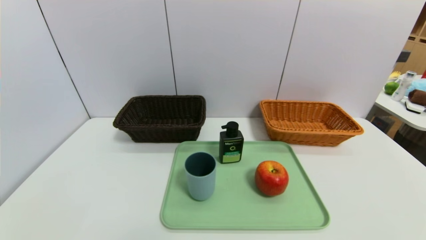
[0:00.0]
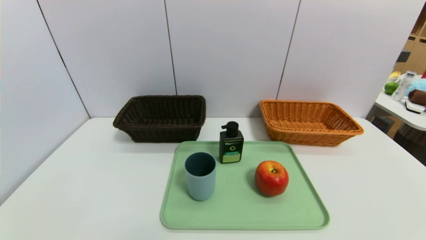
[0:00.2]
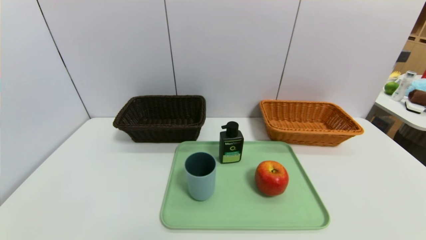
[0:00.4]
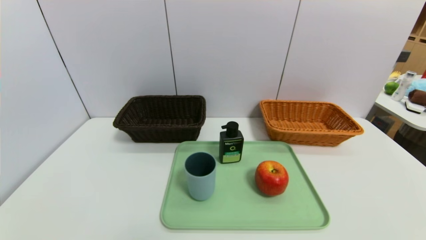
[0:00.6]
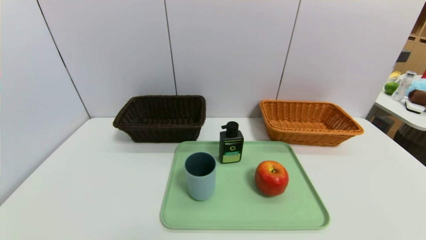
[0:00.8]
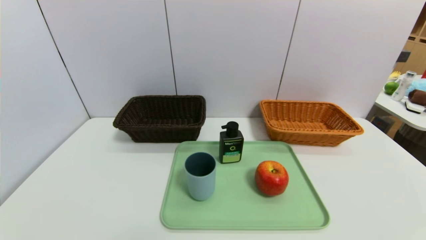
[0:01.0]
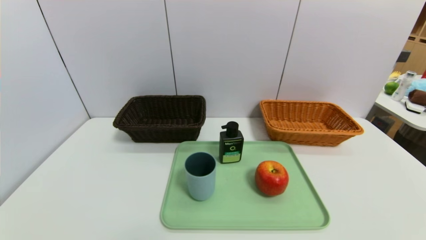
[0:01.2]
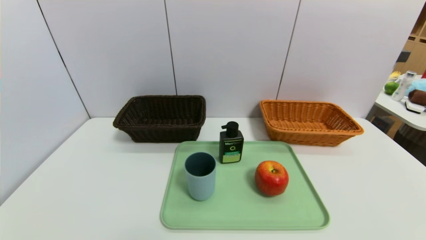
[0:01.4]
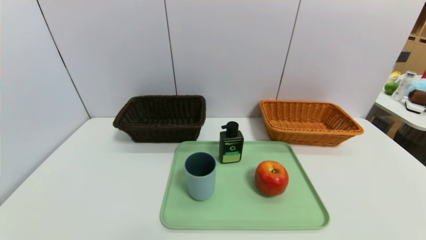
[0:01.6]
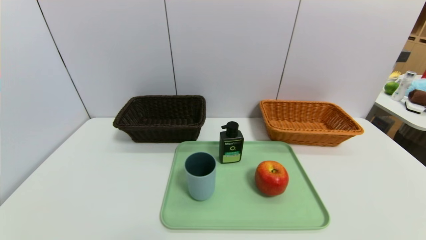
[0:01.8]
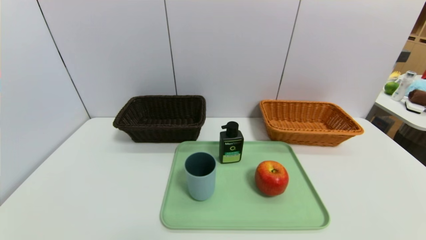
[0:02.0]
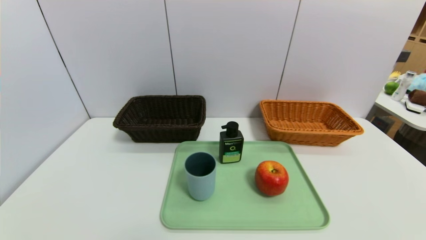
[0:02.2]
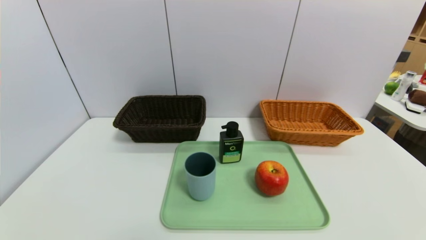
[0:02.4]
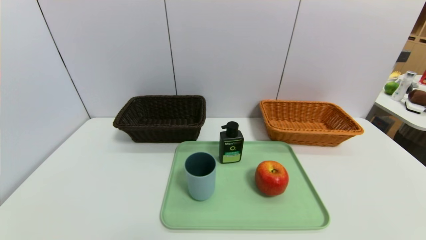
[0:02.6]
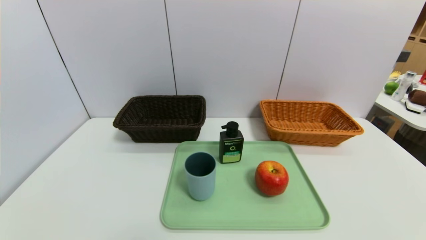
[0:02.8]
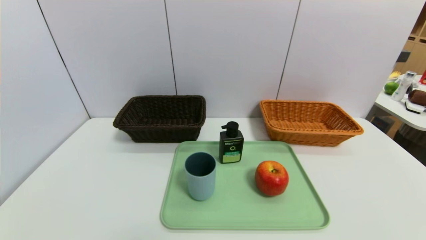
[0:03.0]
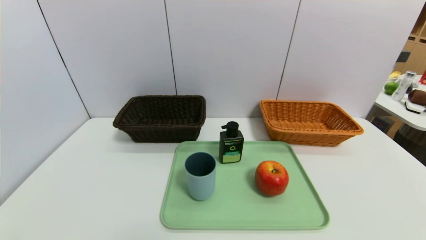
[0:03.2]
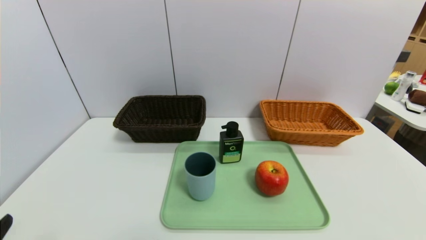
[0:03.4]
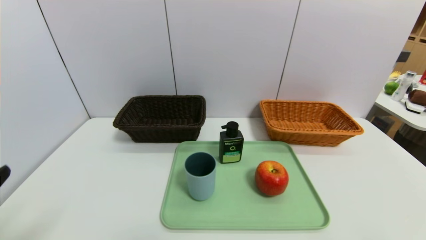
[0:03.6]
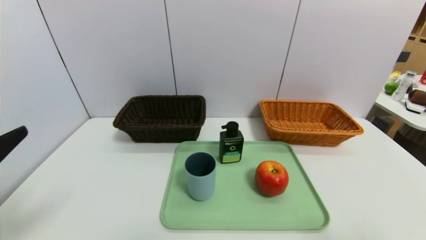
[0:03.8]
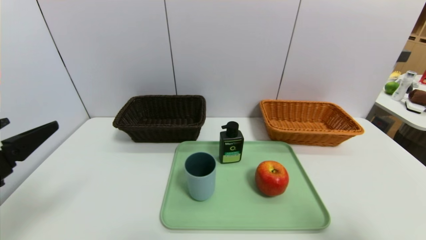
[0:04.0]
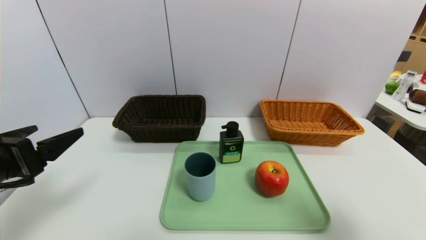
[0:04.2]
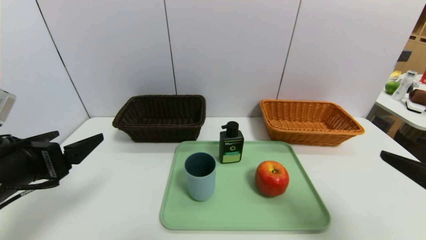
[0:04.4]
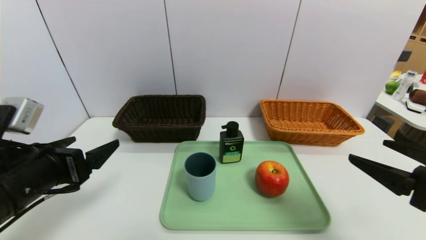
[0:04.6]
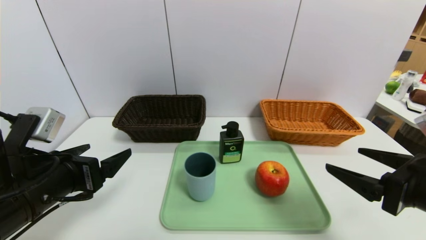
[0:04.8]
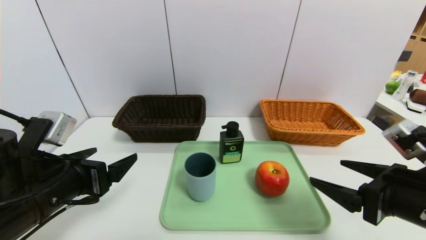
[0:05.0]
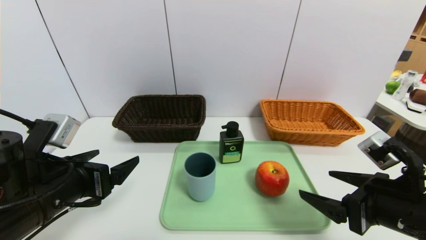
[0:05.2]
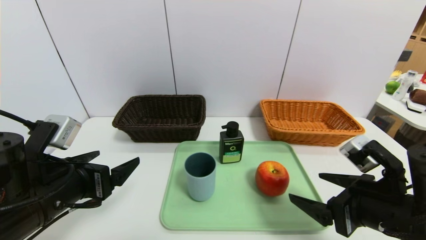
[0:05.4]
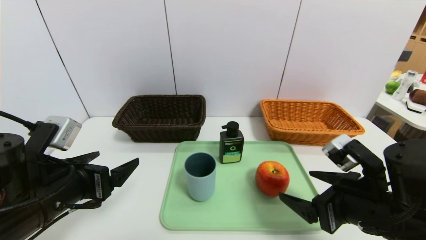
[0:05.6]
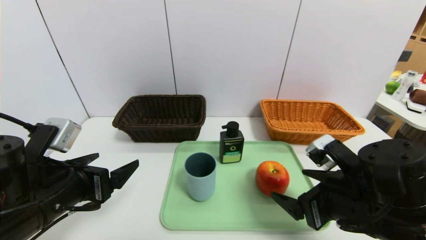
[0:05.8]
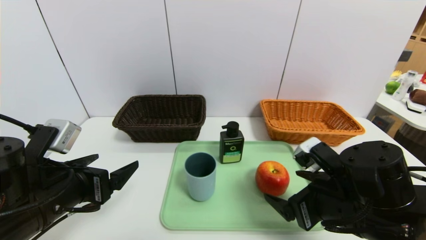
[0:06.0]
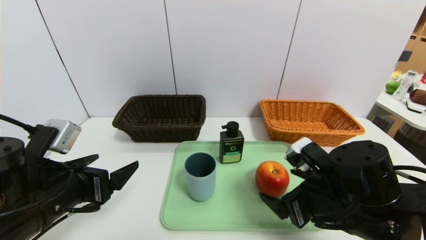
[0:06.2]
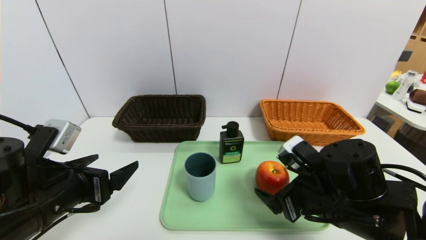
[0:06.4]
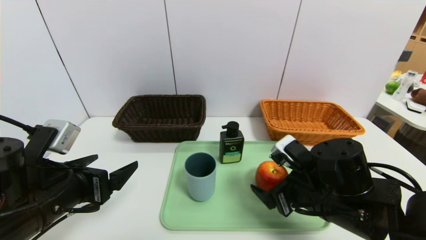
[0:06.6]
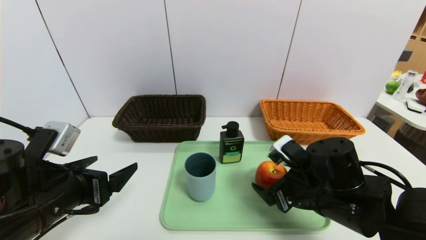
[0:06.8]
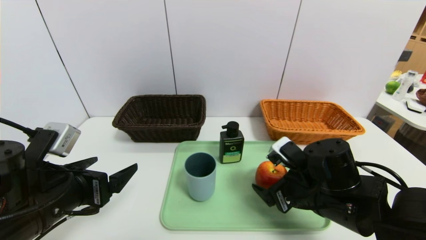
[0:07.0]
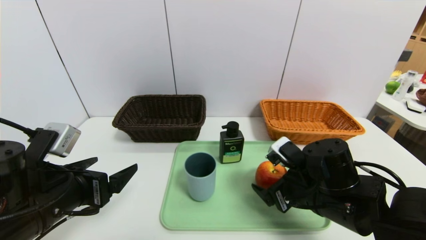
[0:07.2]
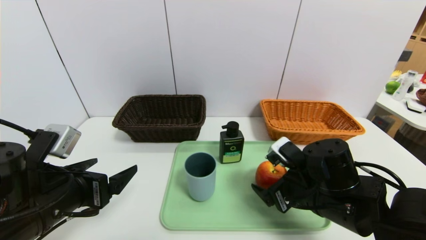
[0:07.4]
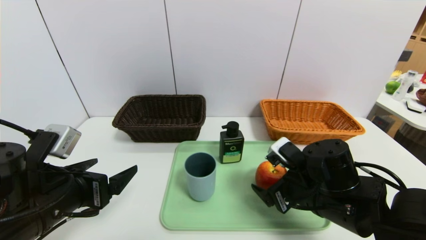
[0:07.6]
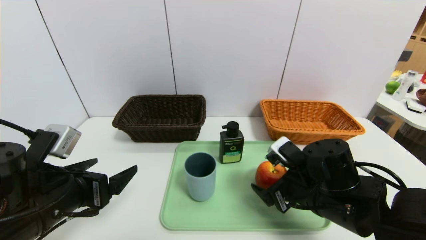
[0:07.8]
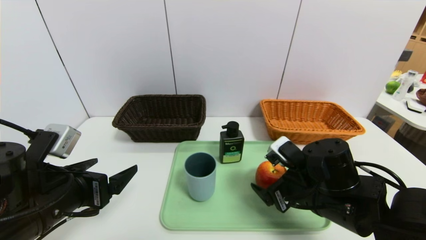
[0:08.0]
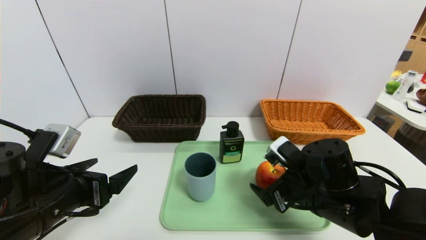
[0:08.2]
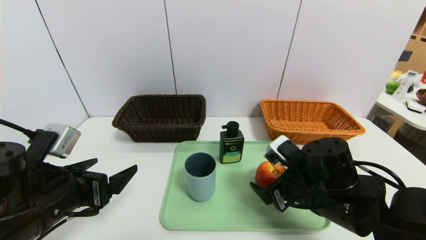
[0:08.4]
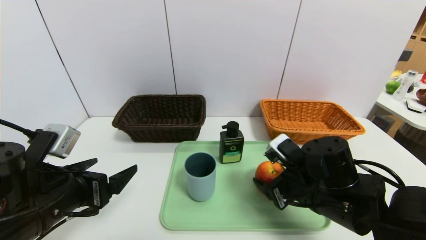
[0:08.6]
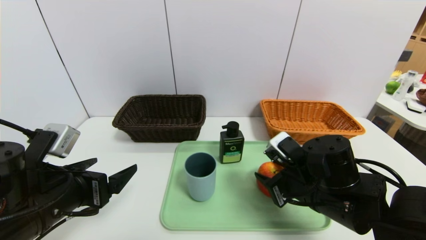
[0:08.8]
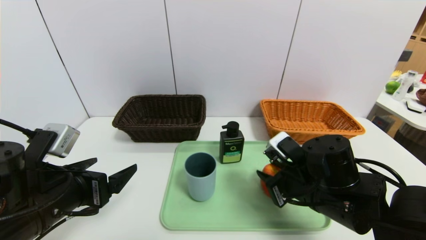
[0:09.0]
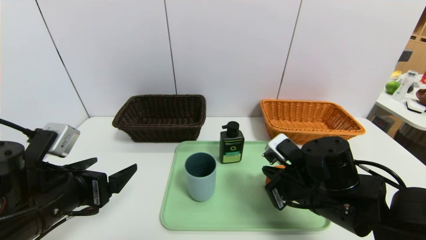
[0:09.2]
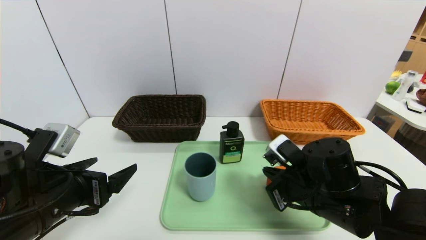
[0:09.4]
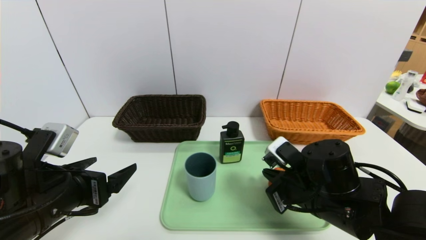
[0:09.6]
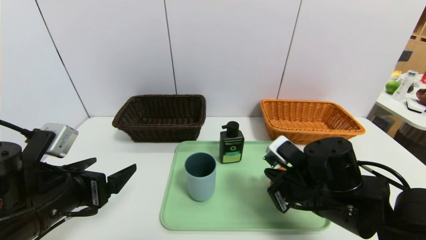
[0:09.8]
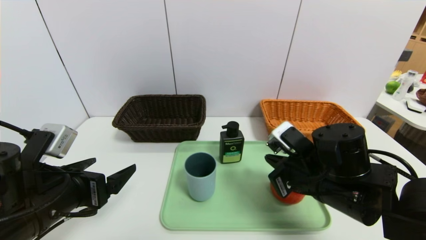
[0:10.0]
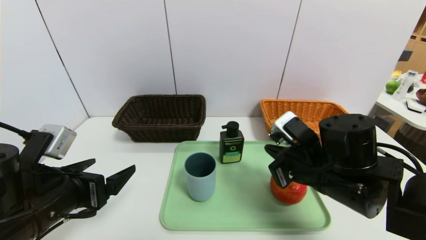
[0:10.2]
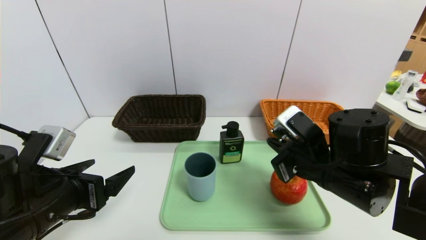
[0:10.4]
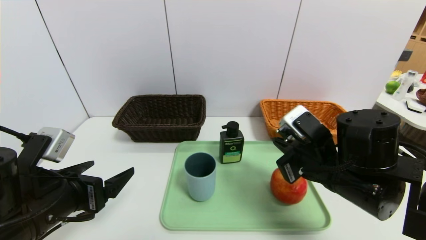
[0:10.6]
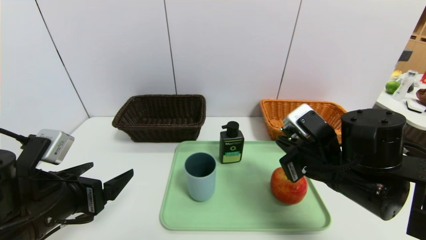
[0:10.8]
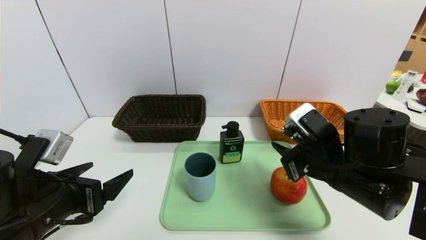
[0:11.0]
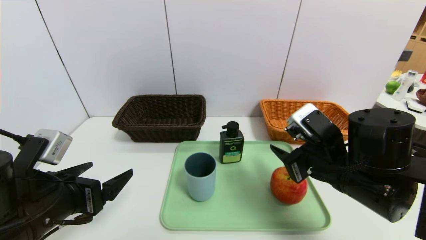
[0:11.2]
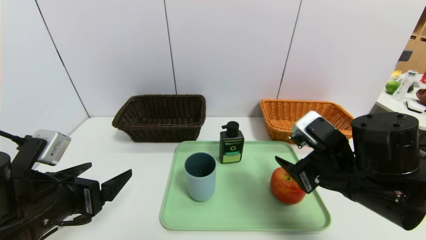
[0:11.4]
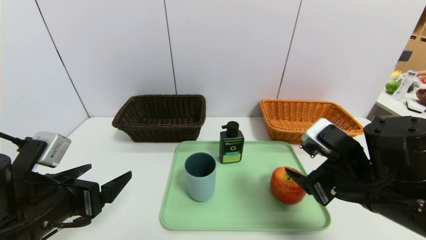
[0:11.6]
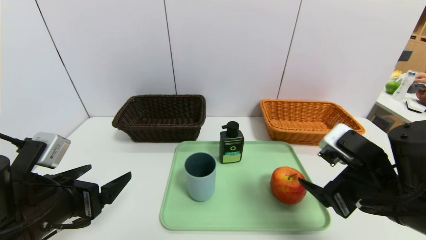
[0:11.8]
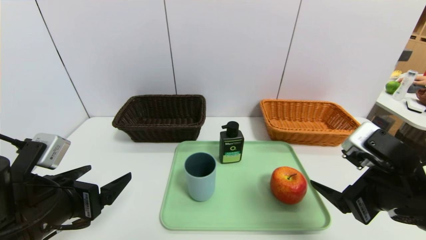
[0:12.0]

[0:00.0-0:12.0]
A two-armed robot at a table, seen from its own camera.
Task of the whole recording: place the food in the right basket with the right gripper, and place the non food items in the left basket with the left gripper.
0:00.0 to 0:01.6: Both grippers stay about where they are.
0:03.0 to 0:04.4: The left gripper travels forward and upward by approximately 20 cm; the right gripper goes approximately 20 cm upward and forward.
0:04.4 to 0:06.0: The right gripper moves to the left, downward and forward, approximately 15 cm, while the left gripper changes place by about 5 cm.
0:06.0 to 0:07.6: The right gripper ends up some 5 cm from where it was.
0:07.6 to 0:09.0: The right gripper closes up.
0:09.0 to 0:10.4: The right gripper closes its fingers.
0:10.4 to 0:12.0: The right gripper travels backward and to the right by roughly 10 cm, and opens up.

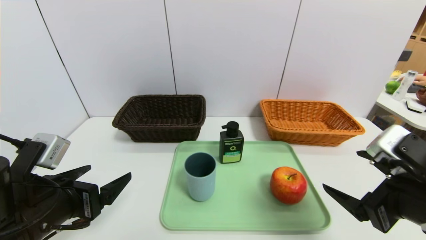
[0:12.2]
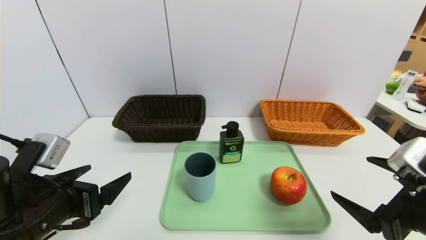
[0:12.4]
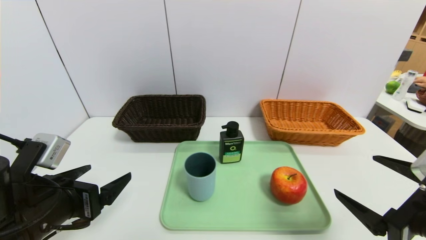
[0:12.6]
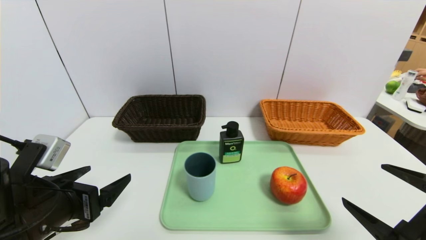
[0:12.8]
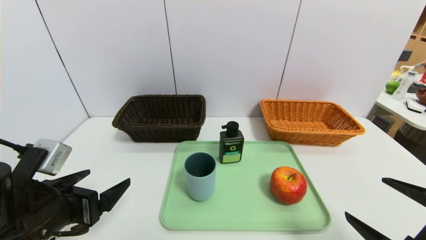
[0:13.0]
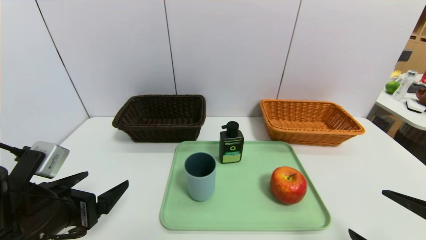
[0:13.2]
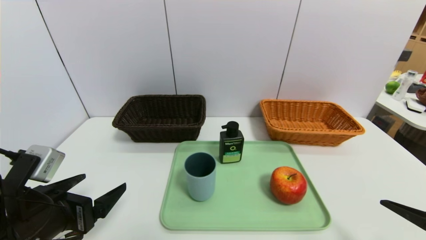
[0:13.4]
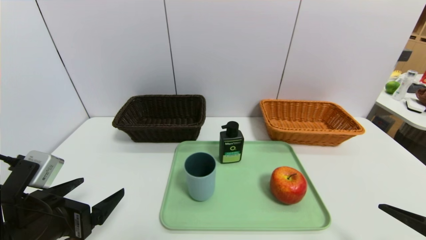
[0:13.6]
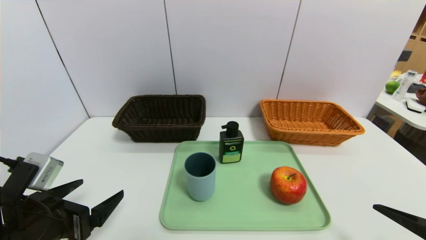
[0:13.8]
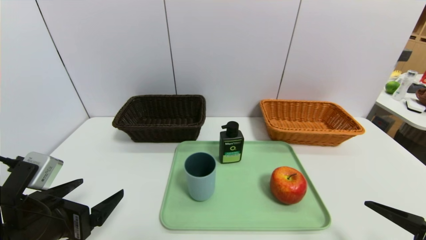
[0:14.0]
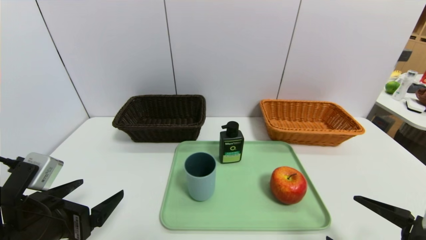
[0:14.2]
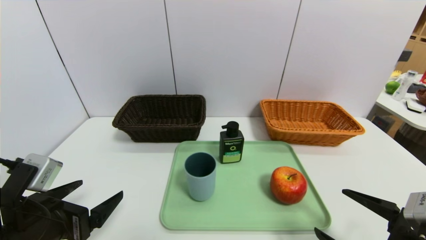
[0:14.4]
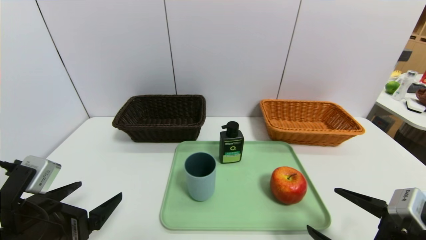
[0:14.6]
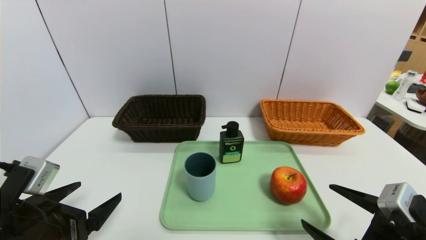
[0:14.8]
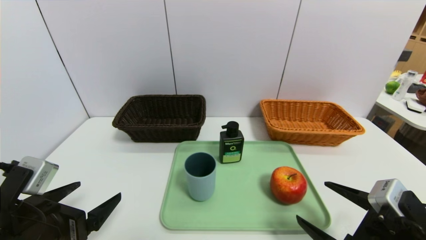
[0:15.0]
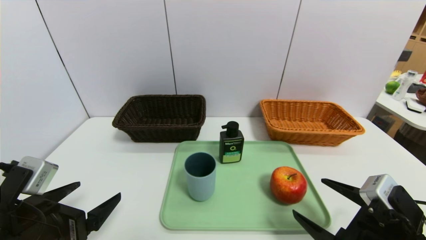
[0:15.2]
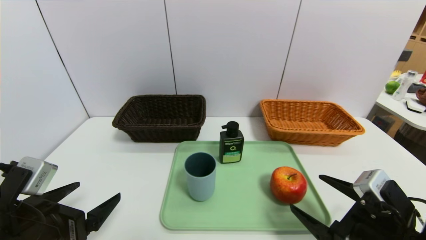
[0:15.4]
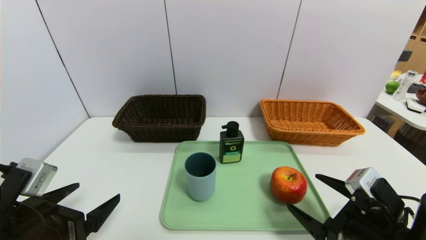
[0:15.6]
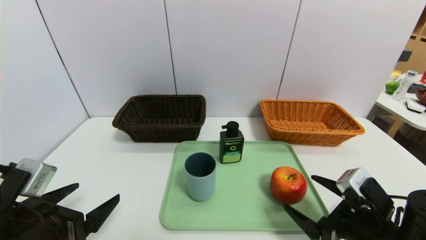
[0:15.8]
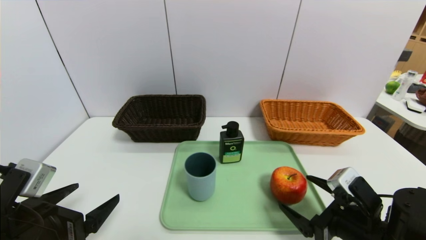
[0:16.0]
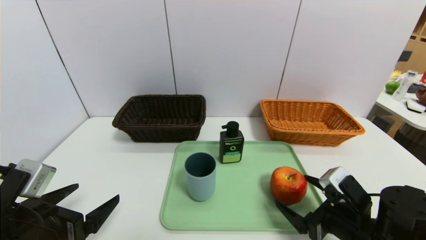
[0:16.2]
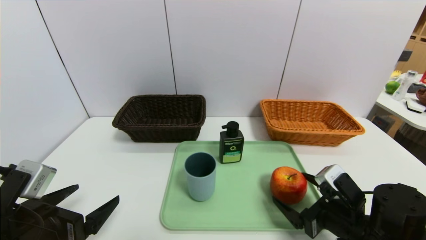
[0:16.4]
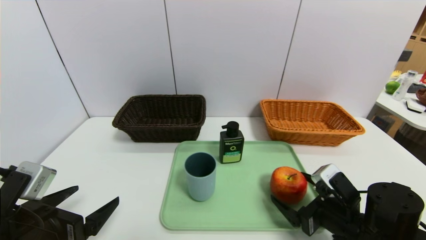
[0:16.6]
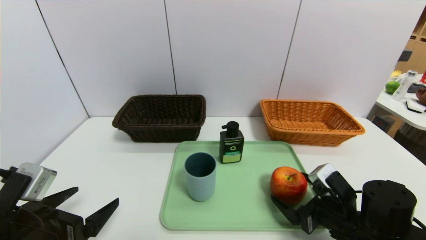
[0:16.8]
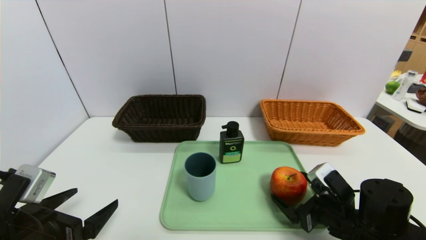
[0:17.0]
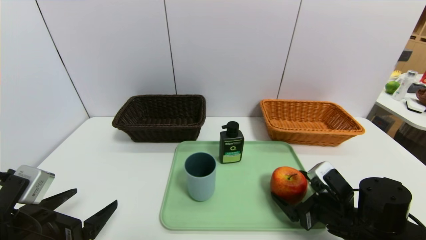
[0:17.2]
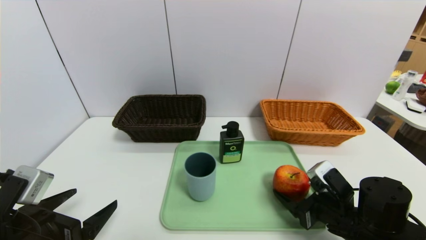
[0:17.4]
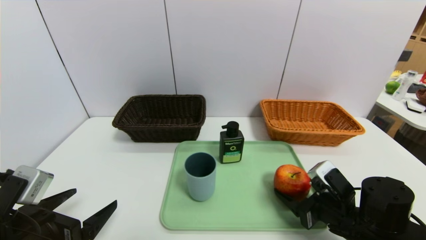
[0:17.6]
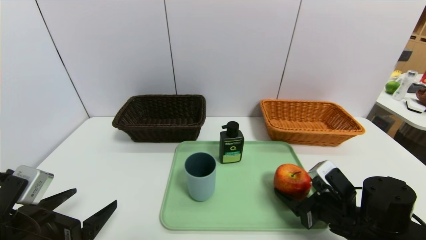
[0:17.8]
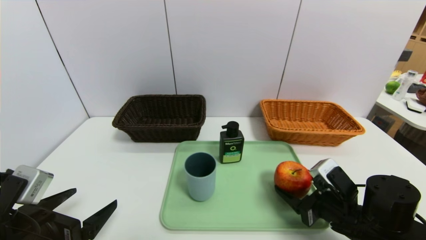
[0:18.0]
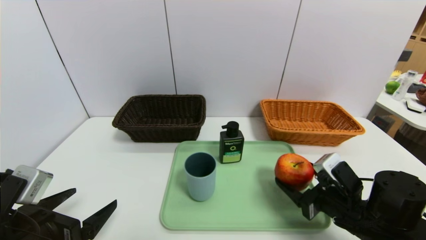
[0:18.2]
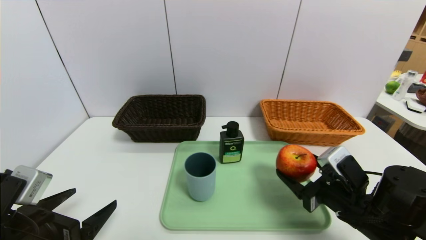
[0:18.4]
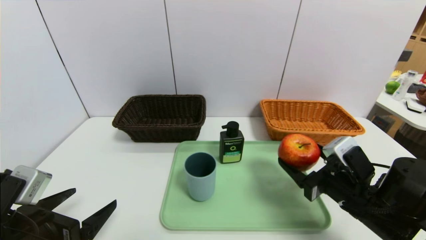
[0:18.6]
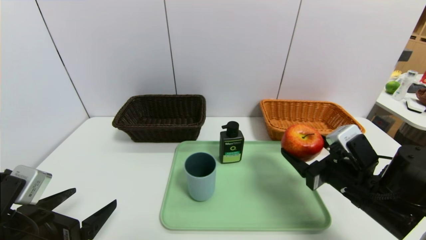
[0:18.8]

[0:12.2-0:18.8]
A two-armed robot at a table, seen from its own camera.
Task of the whole recording: place the food in the right basket with the right gripper, and place the non food items in the left basket with the left gripper.
0:12.2 to 0:13.8: The right gripper moves downward and backward, some 10 cm.
0:13.8 to 0:15.4: The right gripper is displaced forward and to the left by some 10 cm.
0:15.4 to 0:17.2: The right gripper is displaced forward by approximately 5 cm.
0:17.2 to 0:18.8: The right gripper goes approximately 5 cm upward.
